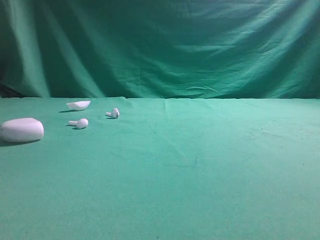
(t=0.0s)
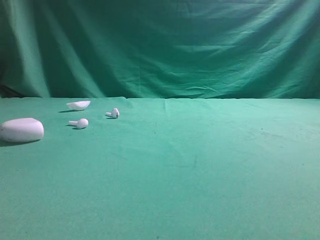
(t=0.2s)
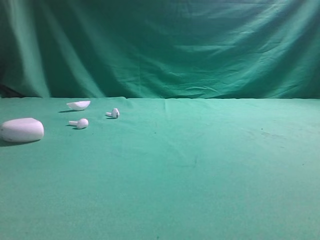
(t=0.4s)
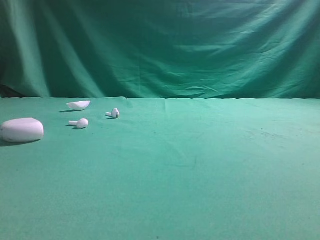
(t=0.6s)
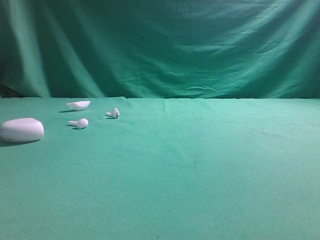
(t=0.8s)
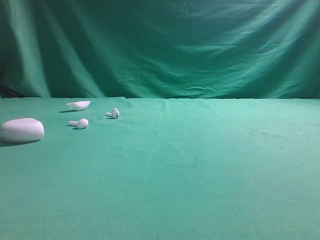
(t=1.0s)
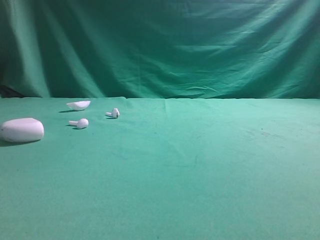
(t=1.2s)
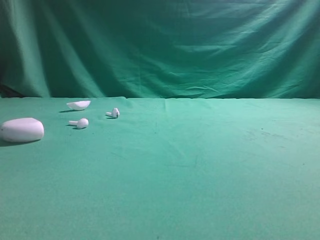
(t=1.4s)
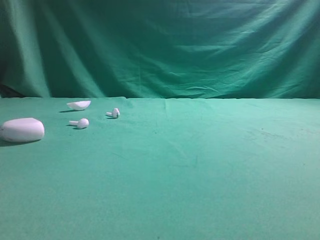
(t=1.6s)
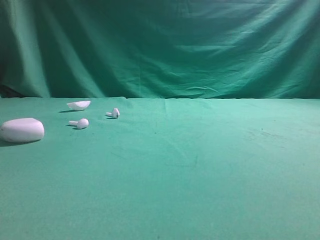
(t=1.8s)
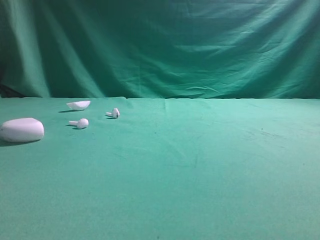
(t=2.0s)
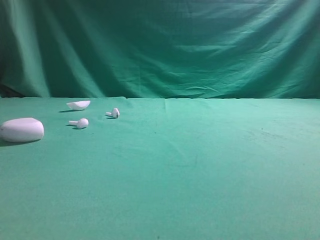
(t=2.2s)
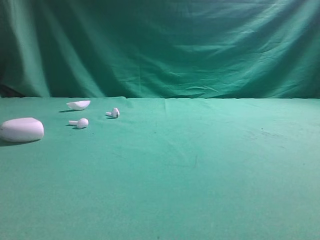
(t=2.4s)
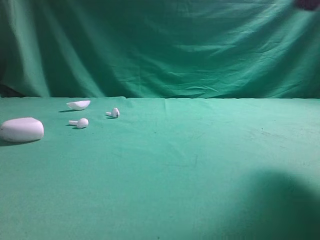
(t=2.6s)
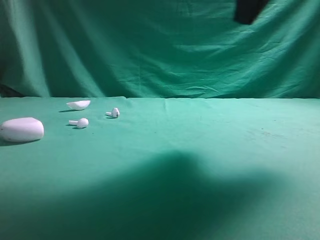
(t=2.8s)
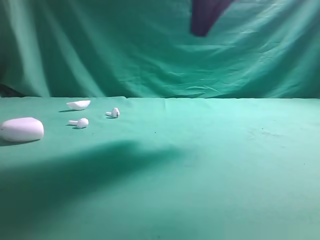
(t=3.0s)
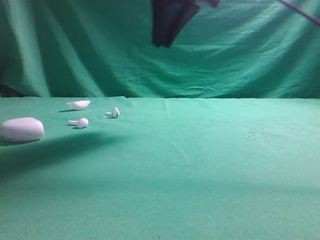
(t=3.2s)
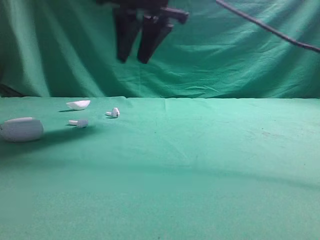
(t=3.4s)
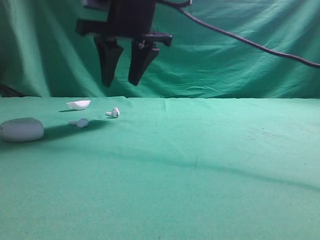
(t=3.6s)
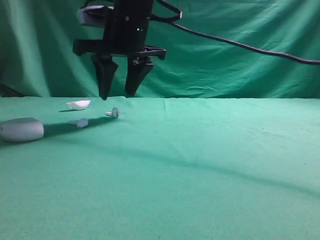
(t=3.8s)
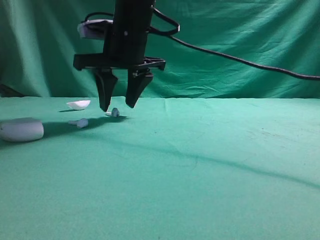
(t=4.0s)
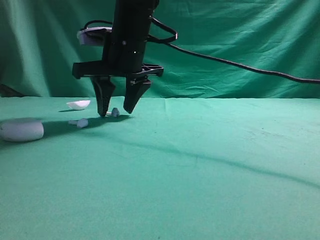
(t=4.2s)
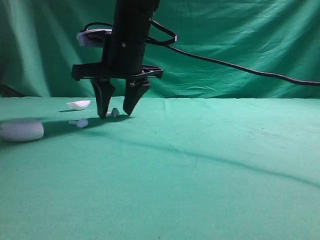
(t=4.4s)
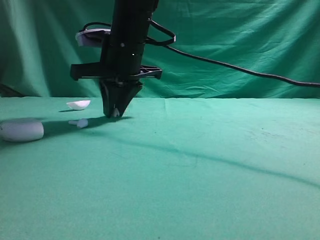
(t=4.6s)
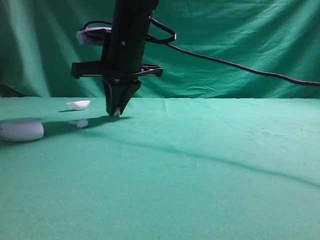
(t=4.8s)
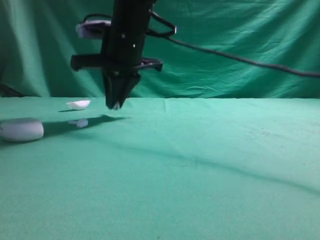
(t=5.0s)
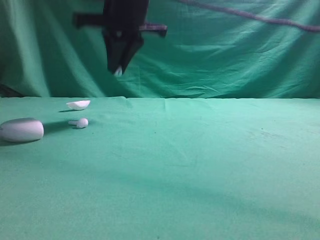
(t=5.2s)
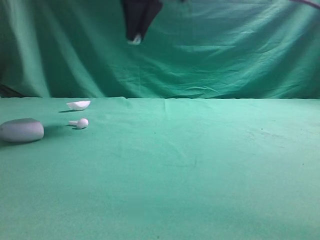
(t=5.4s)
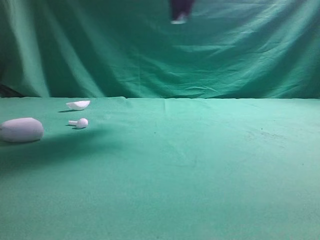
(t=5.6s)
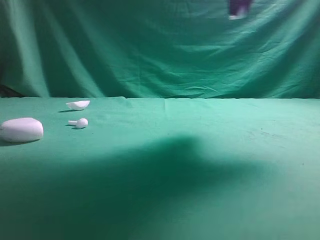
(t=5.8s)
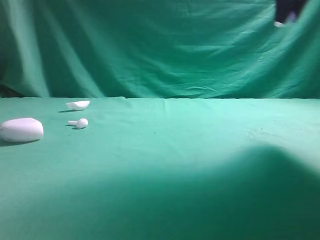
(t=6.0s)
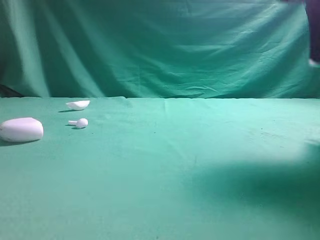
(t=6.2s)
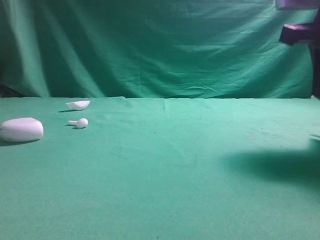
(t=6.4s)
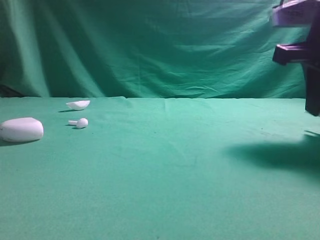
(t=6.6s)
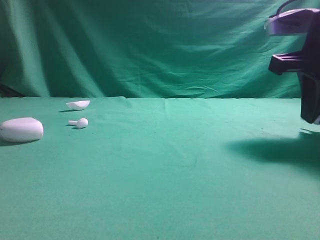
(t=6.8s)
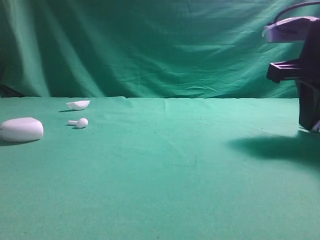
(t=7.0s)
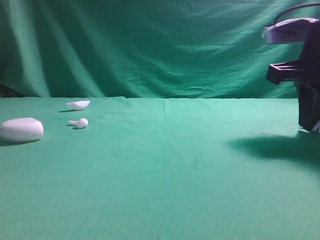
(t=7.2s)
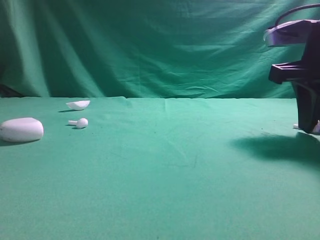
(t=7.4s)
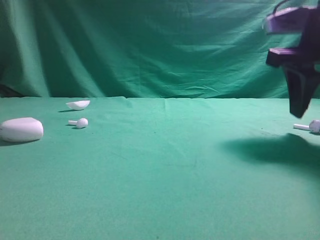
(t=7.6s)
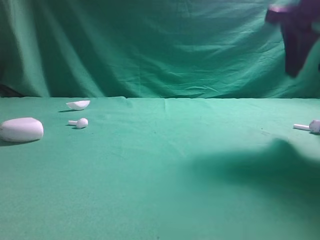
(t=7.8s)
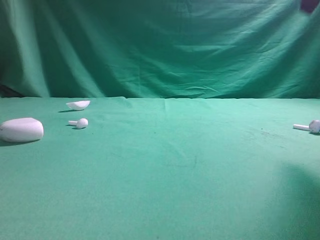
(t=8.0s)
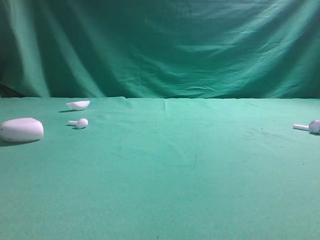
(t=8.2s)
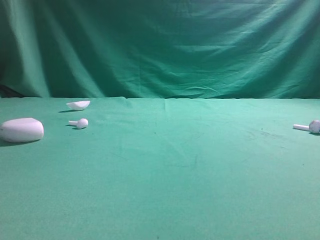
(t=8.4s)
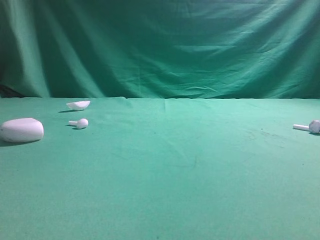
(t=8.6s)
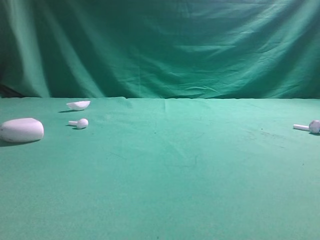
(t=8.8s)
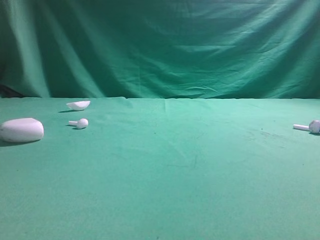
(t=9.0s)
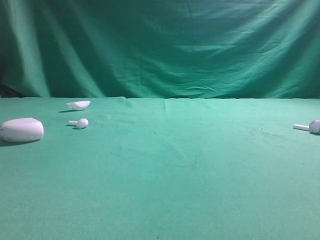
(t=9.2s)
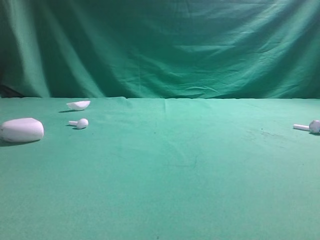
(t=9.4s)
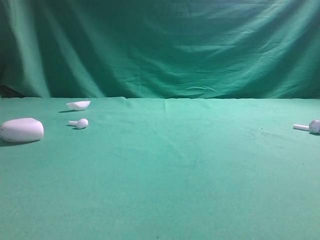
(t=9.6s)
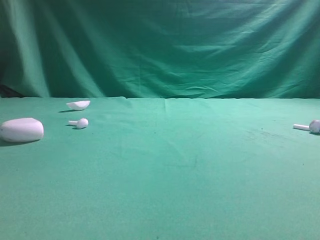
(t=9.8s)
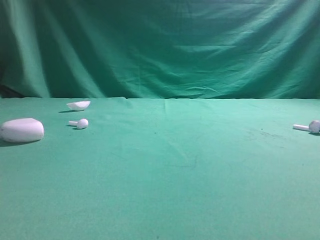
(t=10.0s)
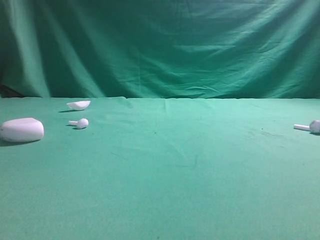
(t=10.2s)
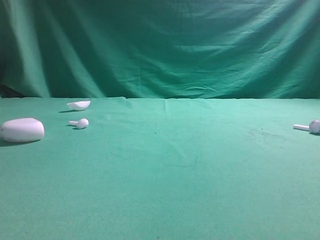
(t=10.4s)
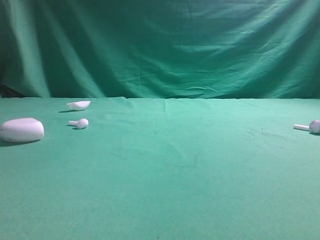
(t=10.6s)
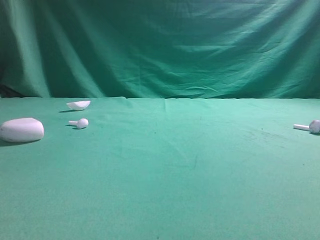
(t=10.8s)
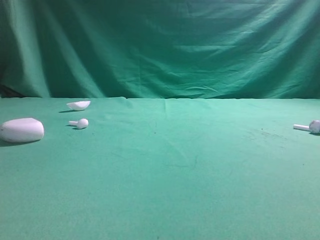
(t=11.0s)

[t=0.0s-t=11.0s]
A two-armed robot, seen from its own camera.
Step, t=0.0s to t=5.4s: Grasp the Bluetooth earbud.
Step, t=5.6s to t=7.8s: Place bluetooth earbud on the right side of the table.
